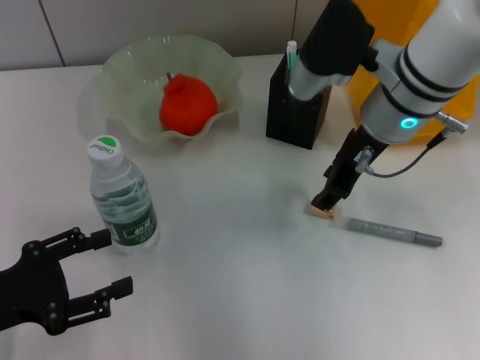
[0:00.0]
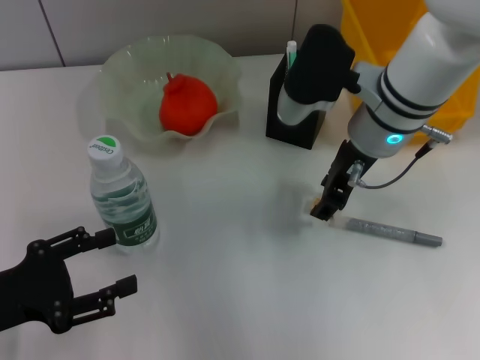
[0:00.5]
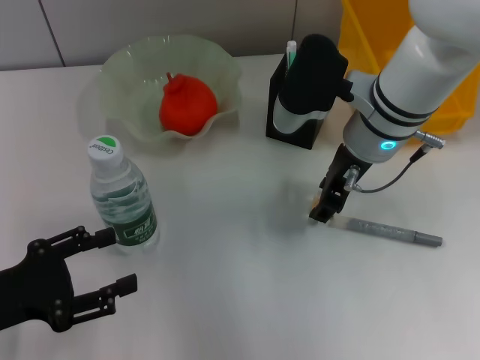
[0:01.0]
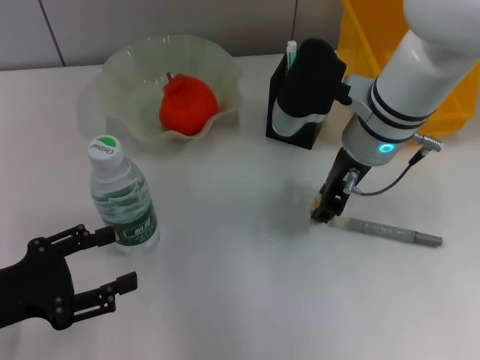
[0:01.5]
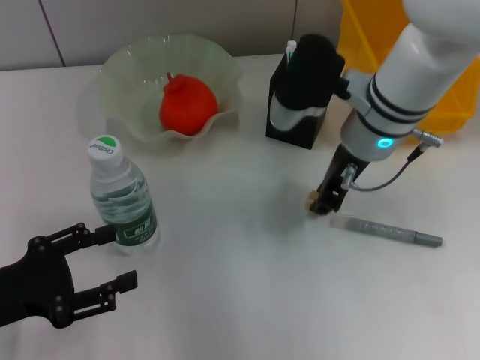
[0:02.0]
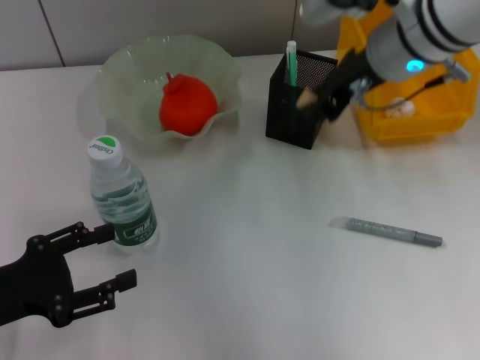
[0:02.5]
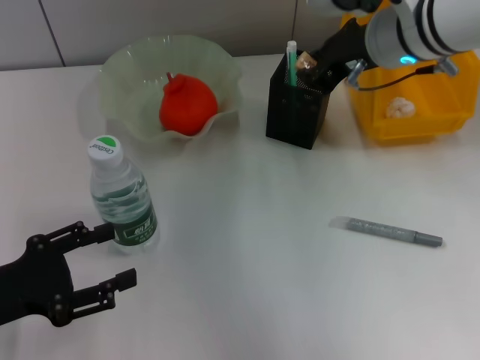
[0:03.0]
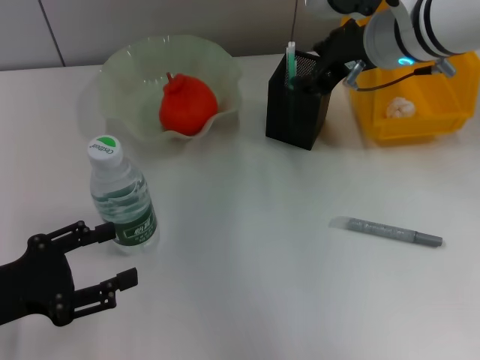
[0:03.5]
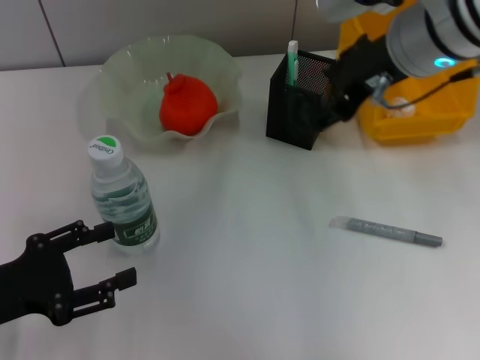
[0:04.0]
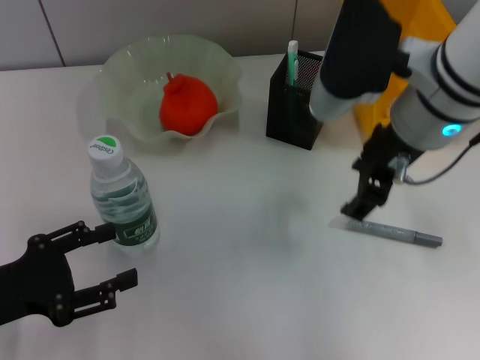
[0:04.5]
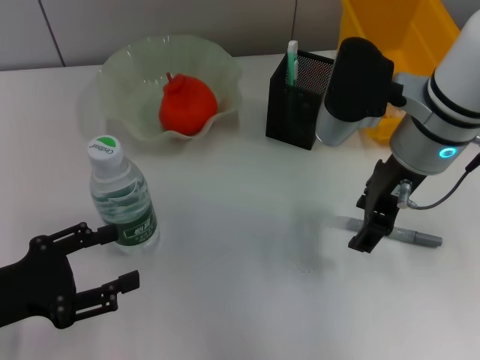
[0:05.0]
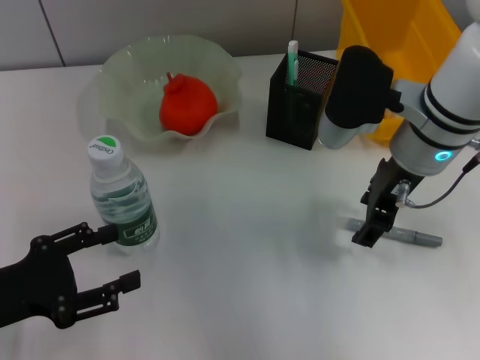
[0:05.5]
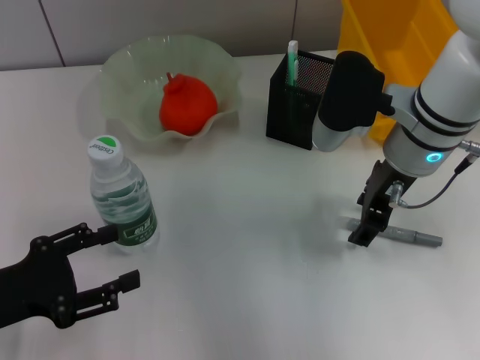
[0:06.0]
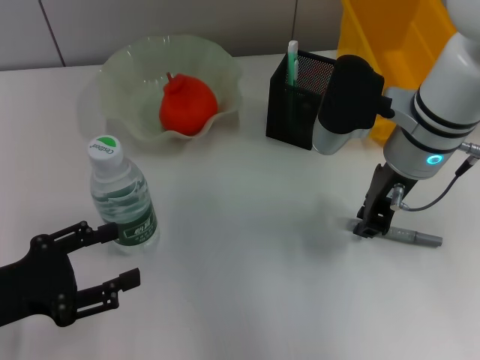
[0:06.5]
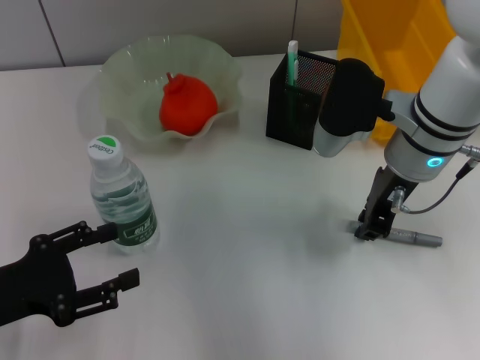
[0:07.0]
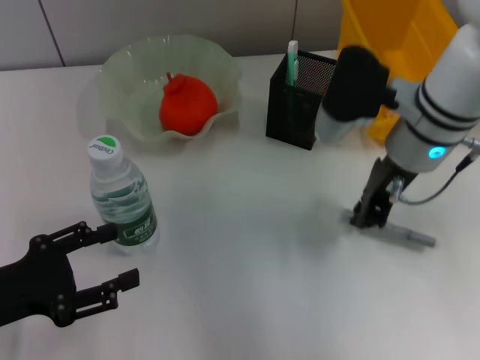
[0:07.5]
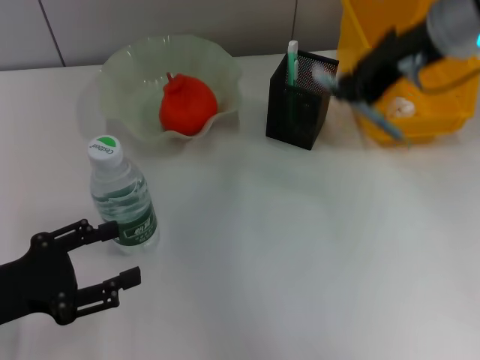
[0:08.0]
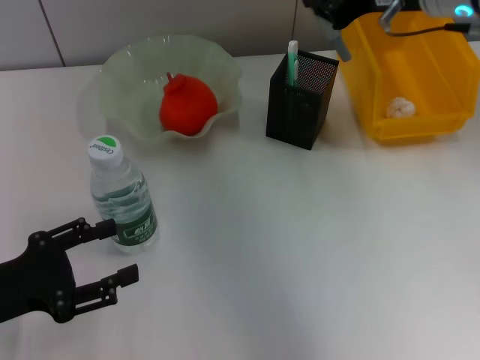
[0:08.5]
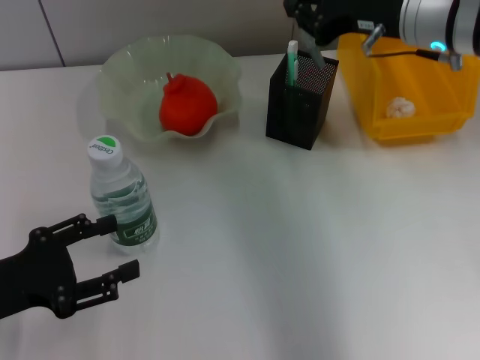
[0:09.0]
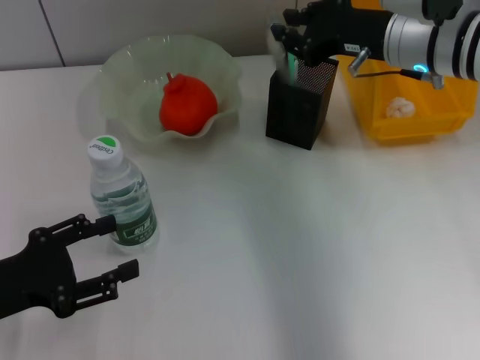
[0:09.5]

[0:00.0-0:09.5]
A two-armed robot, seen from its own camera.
Step, 0:02.0 to 0:03.0: Put the eraser into the pen holder with the right hand.
Step, 0:04.0 to 0:07.0: Grab the gray glue with the right hand.
0:00.0 to 0:02.0: The right gripper closes up.
0:02.0 to 0:04.0: The right gripper shifts roughly 10 cm upward, and opens.
0:04.0 to 0:05.5: The right gripper moves downward, some 10 cm.
0:05.5 to 0:07.5: The right gripper closes its fingers.
0:07.5 to 0:09.5: The right gripper goes upward and returns, about 10 cm each way.

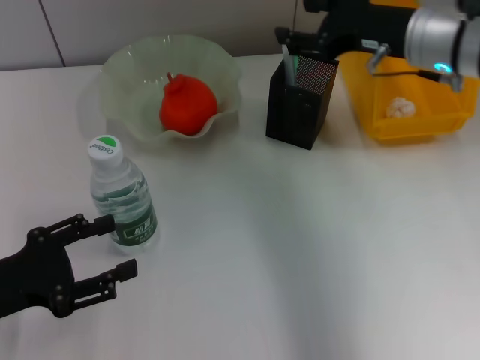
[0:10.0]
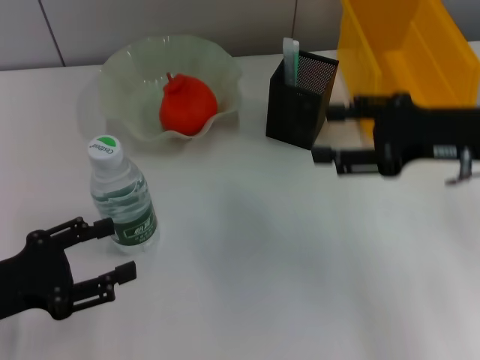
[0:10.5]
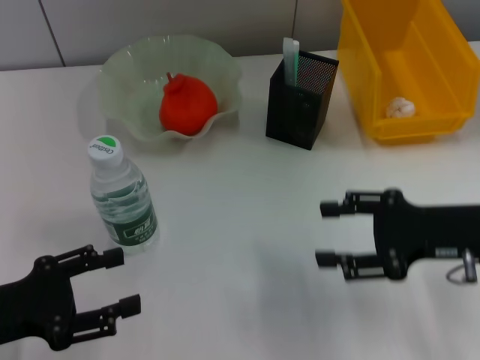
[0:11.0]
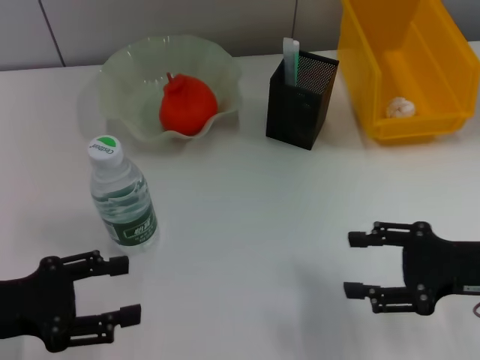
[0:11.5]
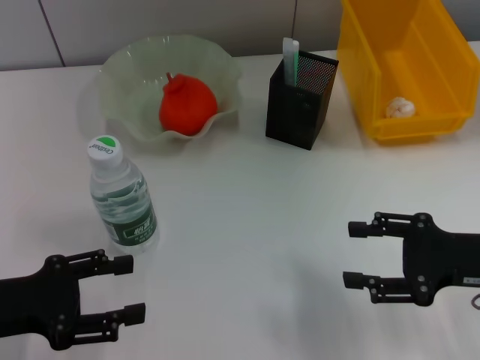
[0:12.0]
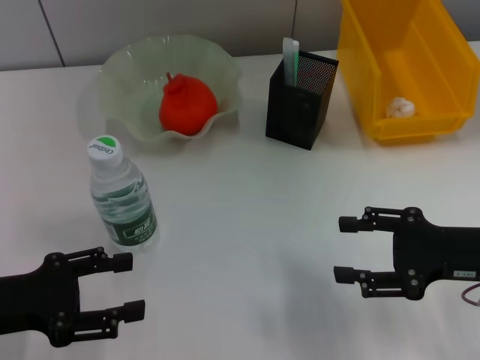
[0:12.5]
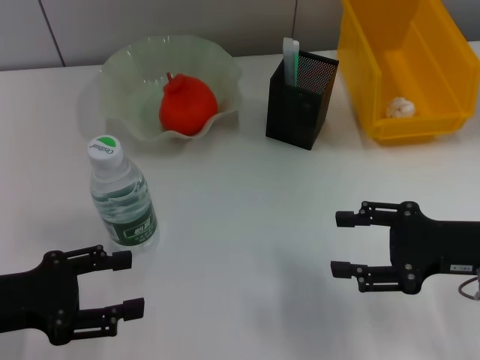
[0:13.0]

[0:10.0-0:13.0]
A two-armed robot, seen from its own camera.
0:10.0 to 0:11.5: The right gripper moves backward, downward and to the right, approximately 20 cm, and opens.
0:11.5 to 0:13.0: The grippers make only small movements.

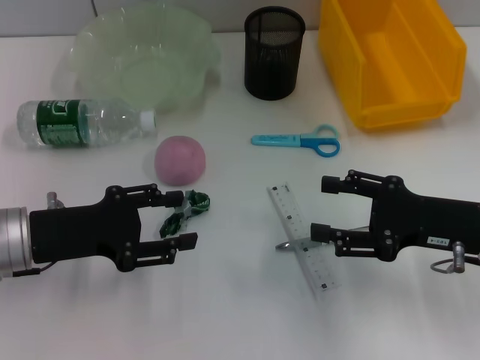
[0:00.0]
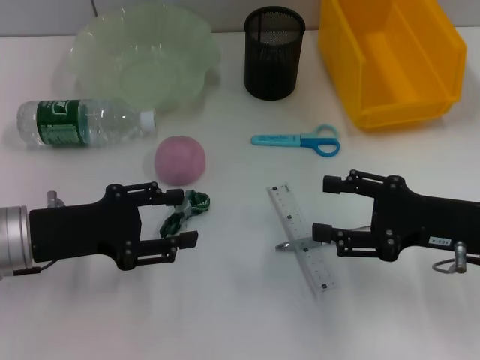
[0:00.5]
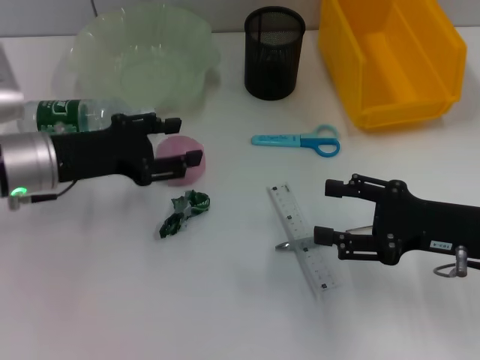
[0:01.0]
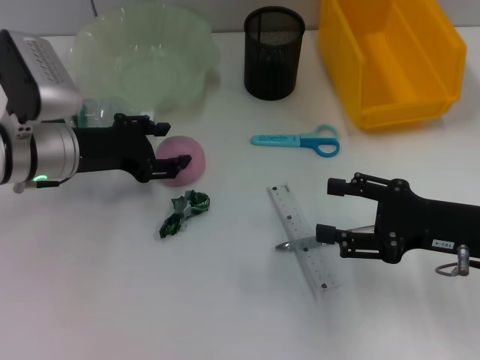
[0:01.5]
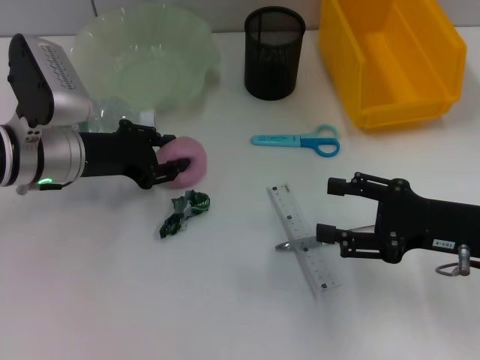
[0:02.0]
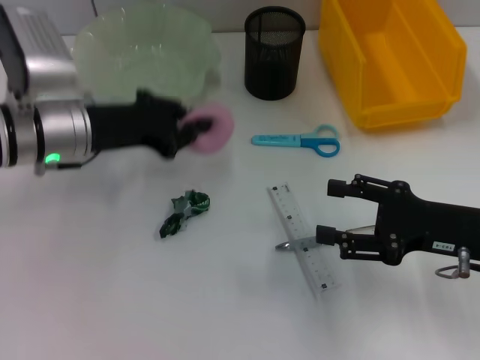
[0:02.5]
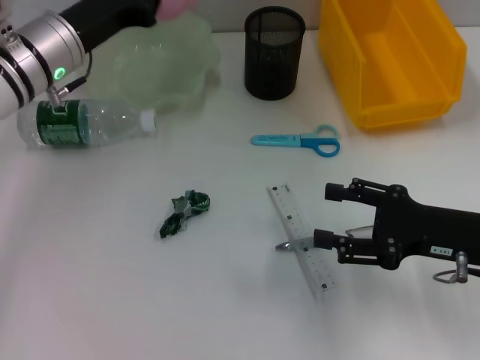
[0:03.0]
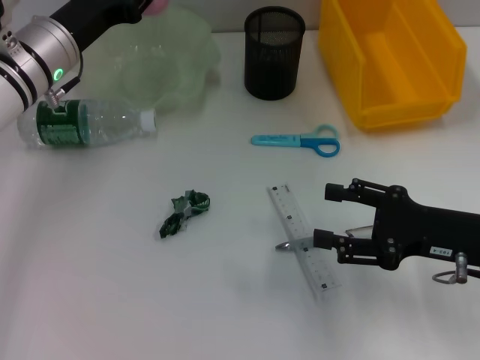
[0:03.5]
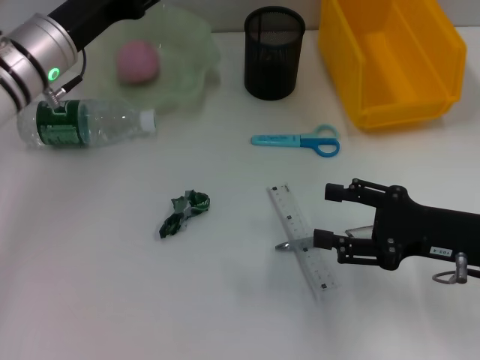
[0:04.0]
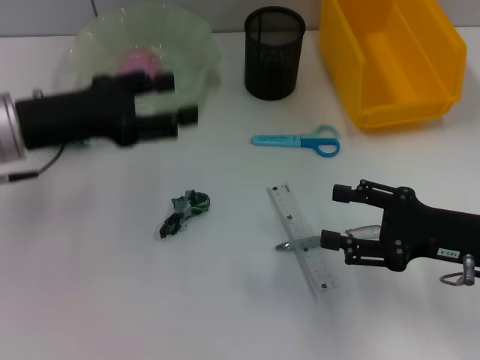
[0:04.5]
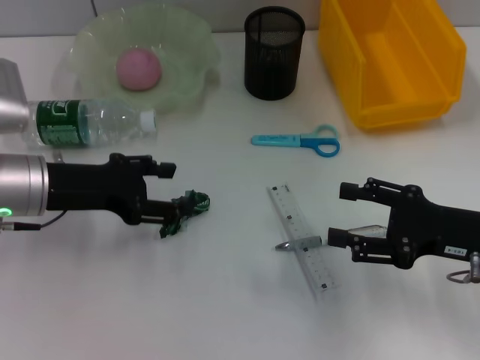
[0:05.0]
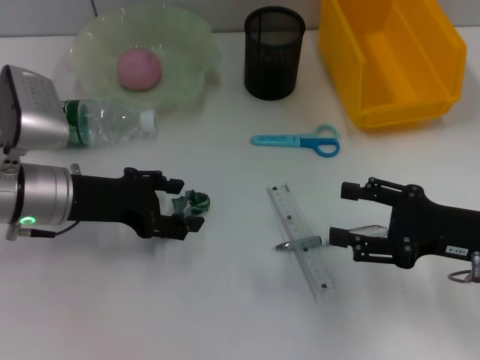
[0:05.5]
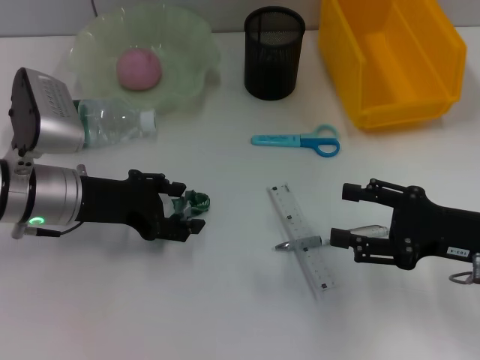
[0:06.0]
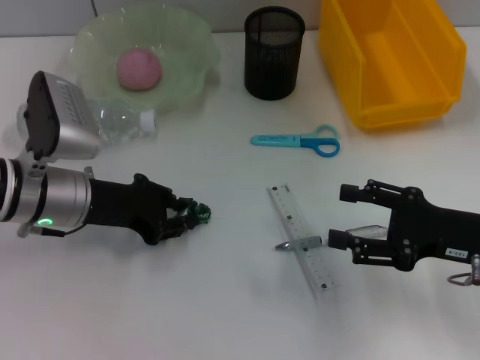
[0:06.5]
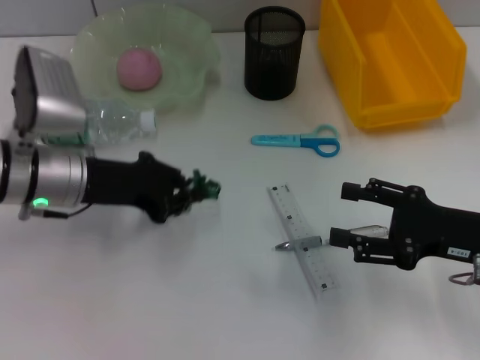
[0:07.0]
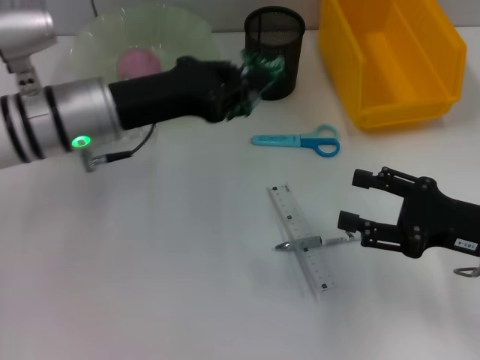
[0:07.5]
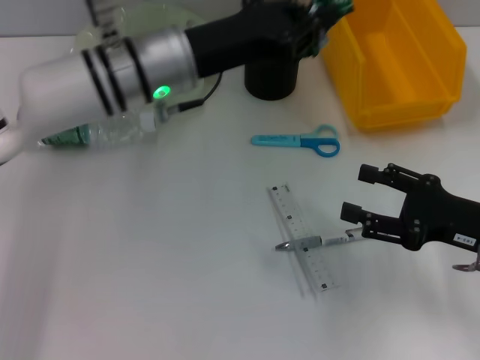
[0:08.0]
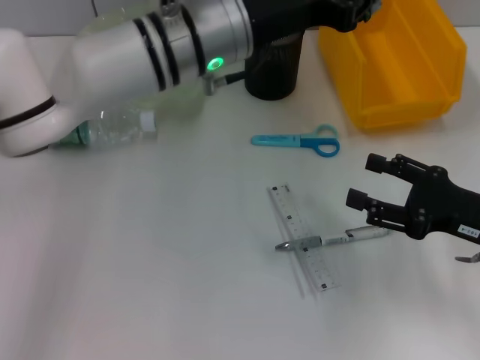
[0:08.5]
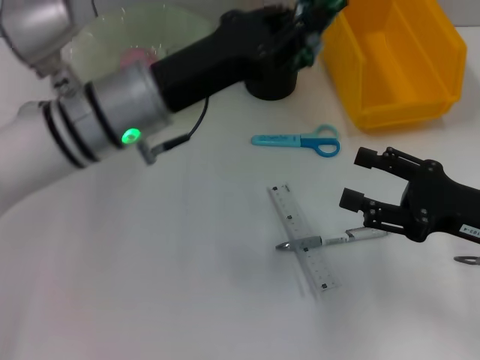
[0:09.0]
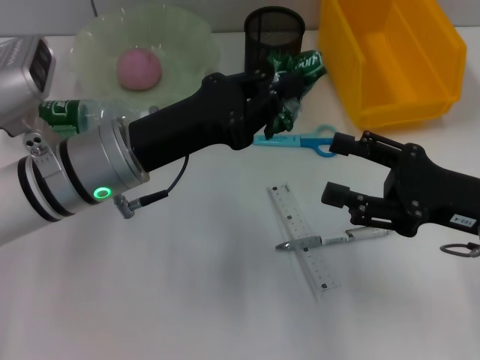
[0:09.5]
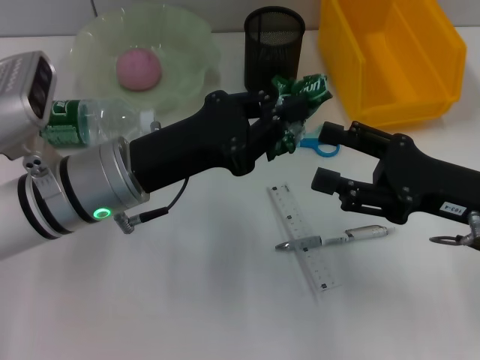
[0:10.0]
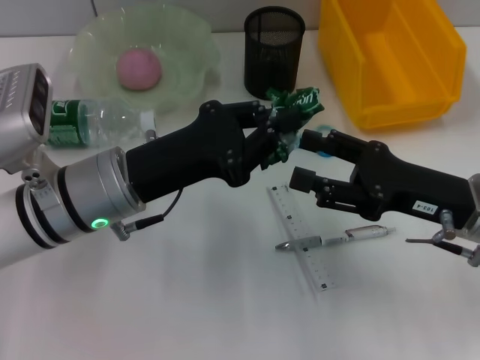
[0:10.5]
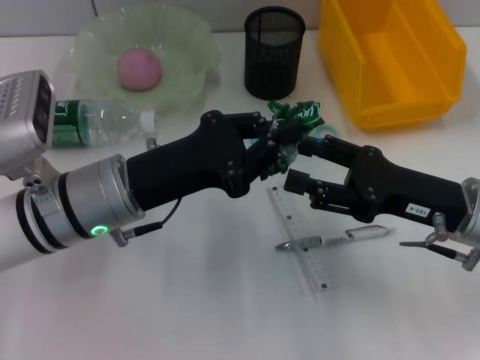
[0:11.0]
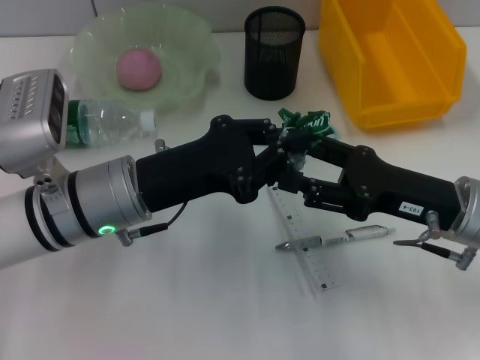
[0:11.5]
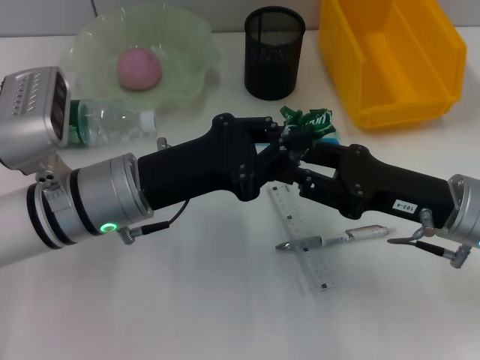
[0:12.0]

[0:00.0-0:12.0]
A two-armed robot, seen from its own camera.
Step, 0:00.0 to 0:02.0: Grab the peach with the left hand.
Step, 0:02.5 to 0:04.0: Place the peach into the fruit bowl with the left hand.
Step, 0:04.5 to 0:06.5: Grab the plastic with the left hand.
0:00.0 to 0:02.0: The left gripper is displaced forward by about 10 cm.
0:02.0 to 0:04.0: The left gripper ends up some 5 cm from where it was, and closes, then reopens.
0:04.0 to 0:06.0: The left gripper travels backward by about 10 cm.
0:06.0 to 0:08.0: The left gripper goes roughly 15 cm to the right, upward and forward, and closes.
0:08.0 to 0:10.0: The right gripper changes place by some 5 cm, while the left gripper travels backward by some 10 cm.

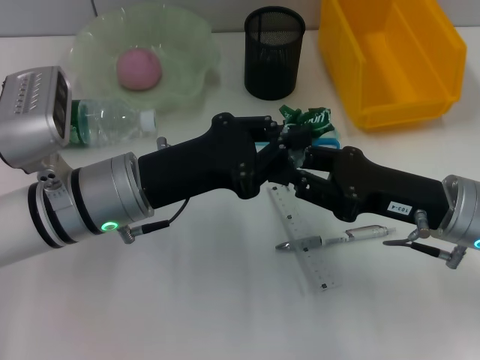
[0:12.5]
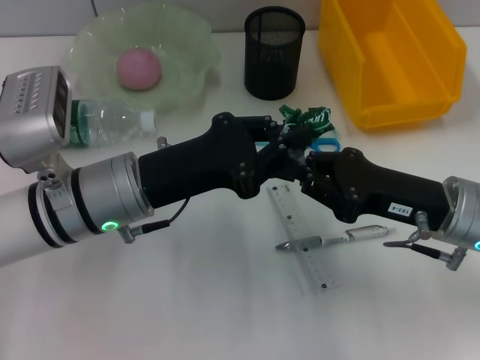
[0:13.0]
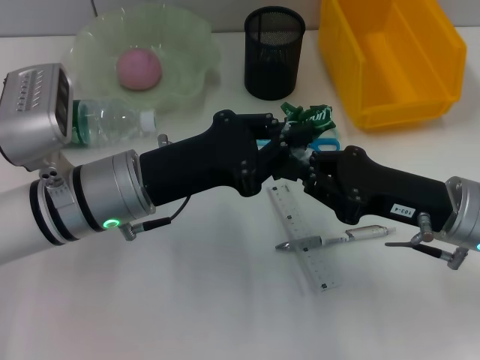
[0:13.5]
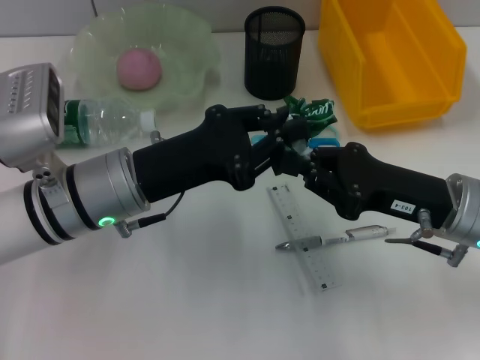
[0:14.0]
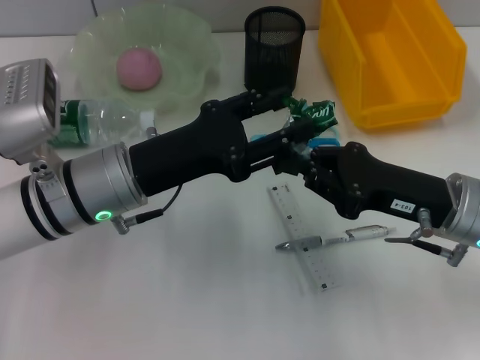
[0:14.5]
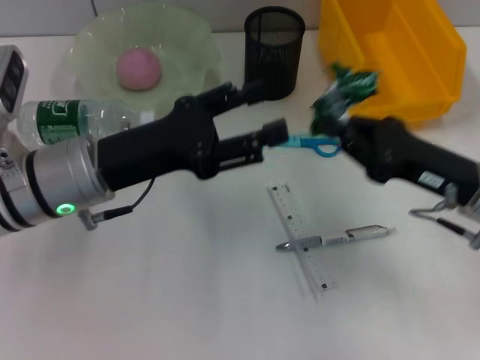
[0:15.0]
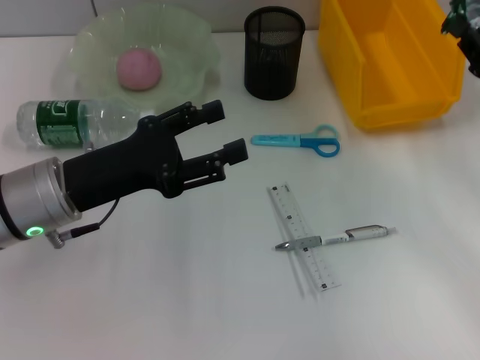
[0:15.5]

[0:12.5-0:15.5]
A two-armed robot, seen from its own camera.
Step, 0:12.5 to 0:14.5: Pass the plastic from the left hand to the right hand.
0:12.5 to 0:14.0: The right gripper closes up.
0:14.0 to 0:15.5: The left gripper heads to the left, covering roughly 5 cm, and opens its fingers. Meanwhile the right gripper is displaced to the right and forward by roughly 10 cm.
